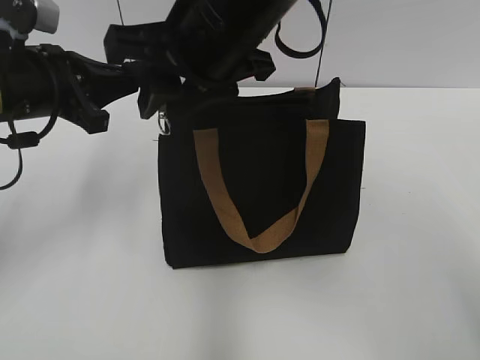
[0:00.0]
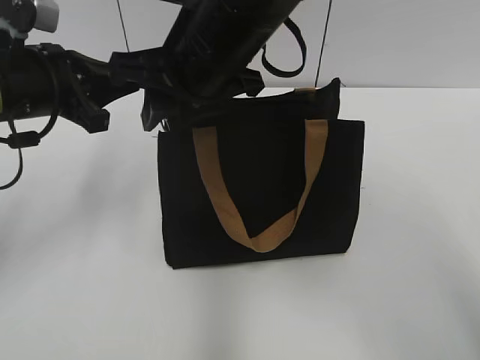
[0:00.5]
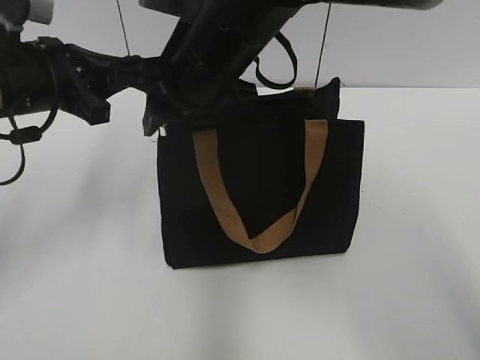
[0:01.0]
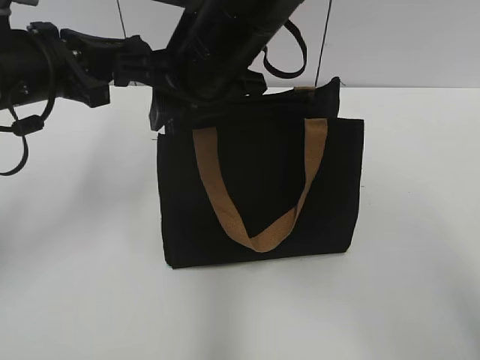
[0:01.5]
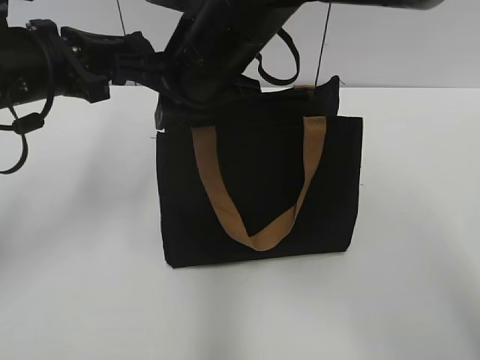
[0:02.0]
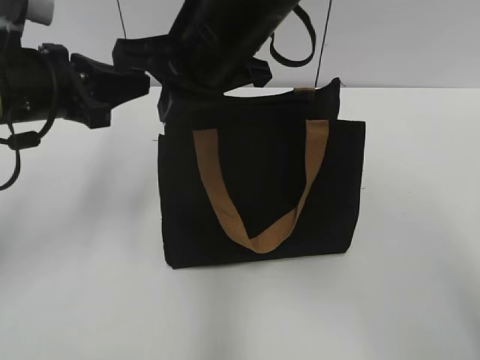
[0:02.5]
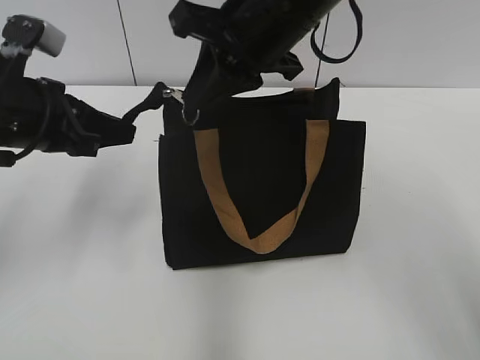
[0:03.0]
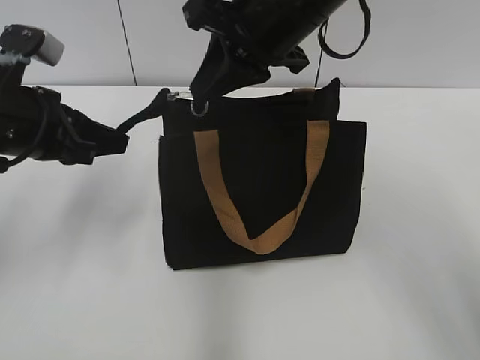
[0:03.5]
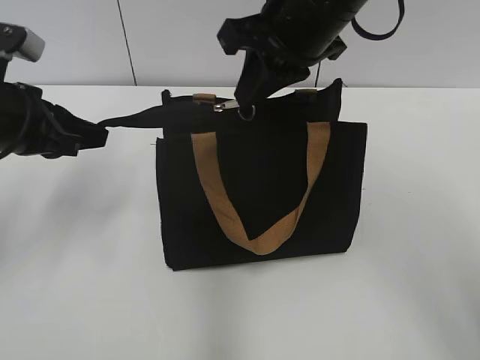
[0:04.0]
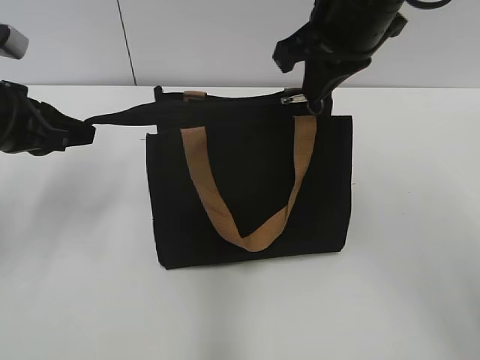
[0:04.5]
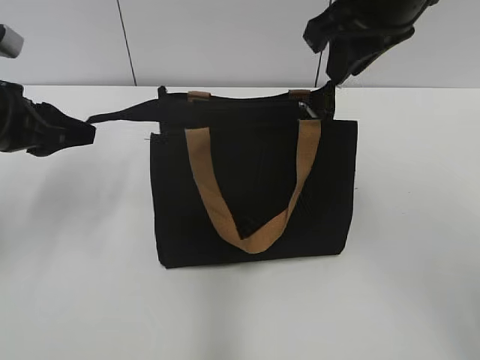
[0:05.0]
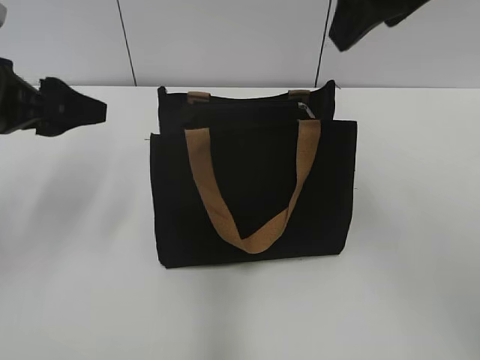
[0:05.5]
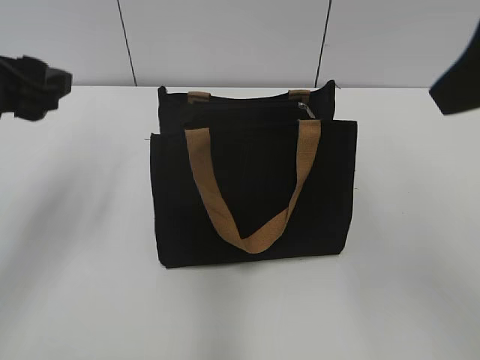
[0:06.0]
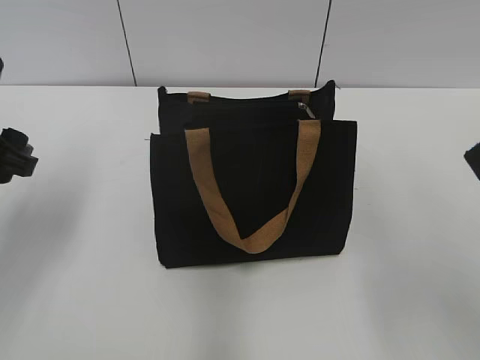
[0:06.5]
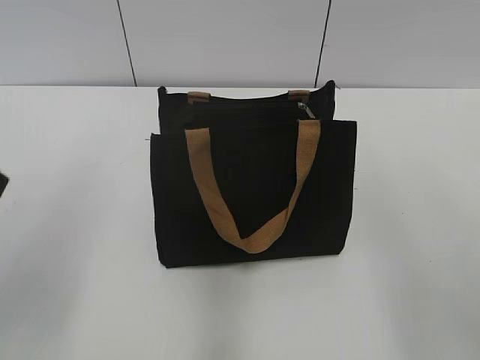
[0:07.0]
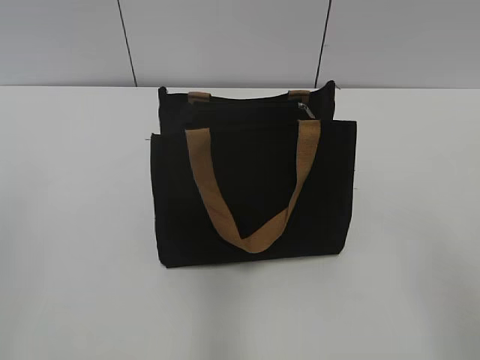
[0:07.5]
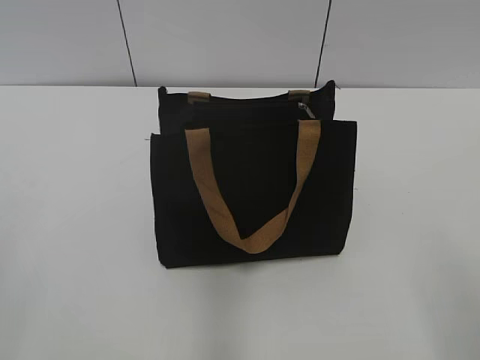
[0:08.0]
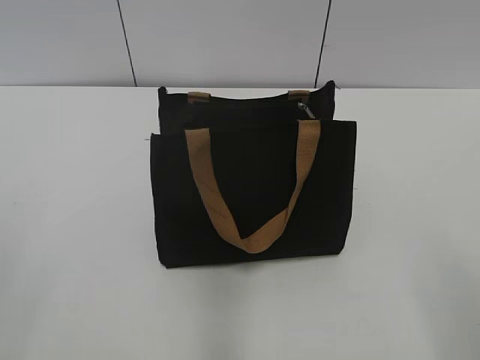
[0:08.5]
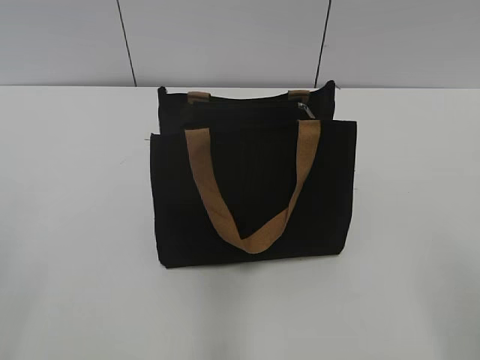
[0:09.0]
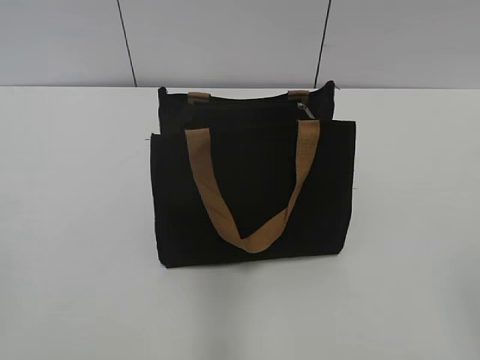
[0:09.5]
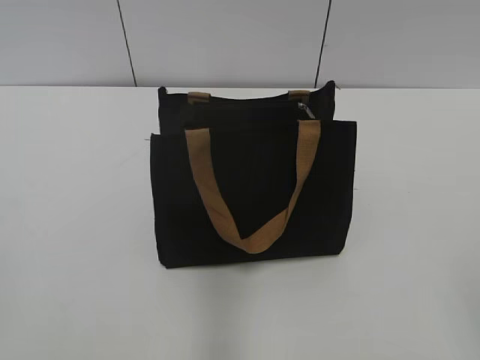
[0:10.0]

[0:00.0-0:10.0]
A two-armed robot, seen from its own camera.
Step, 0:00.0 to 0:04.5: Zip up the bag with your right hand.
0:00.0 to 0:02.0: The right gripper moves roughly 5 cm, and closes.
0:02.0 to 0:04.0: The right gripper travels to the right by roughly 10 cm.
0:04.0 to 0:06.0: The right gripper shifts roughly 20 cm backward, to the right and upward, and opens up, while the left gripper heads upward, covering roughly 5 cm, and opens up.
0:06.0 to 0:08.0: The left gripper goes some 25 cm backward. The right gripper travels backward, downward and to the right by approximately 20 cm.
